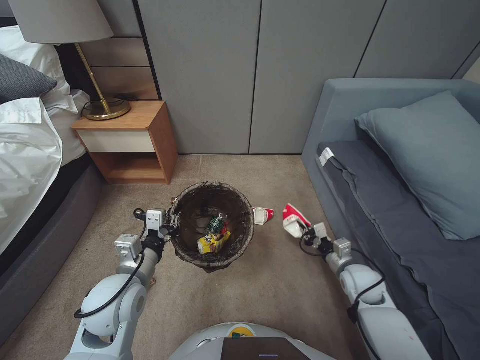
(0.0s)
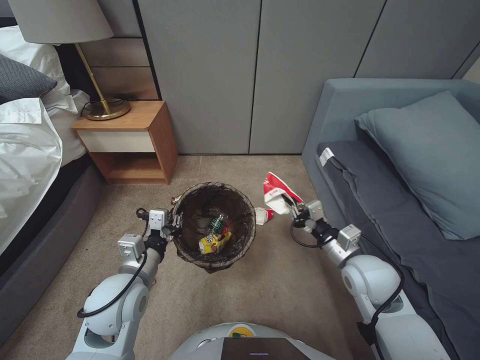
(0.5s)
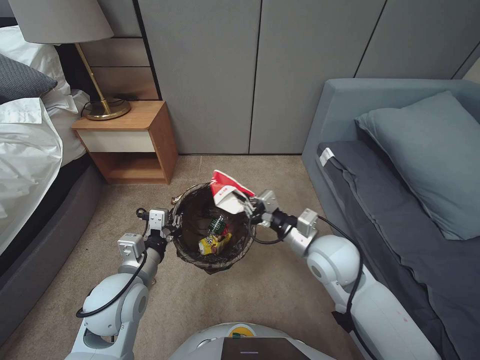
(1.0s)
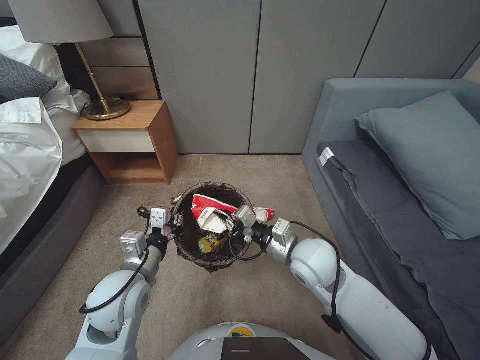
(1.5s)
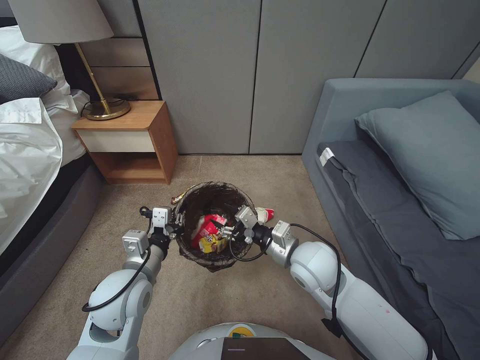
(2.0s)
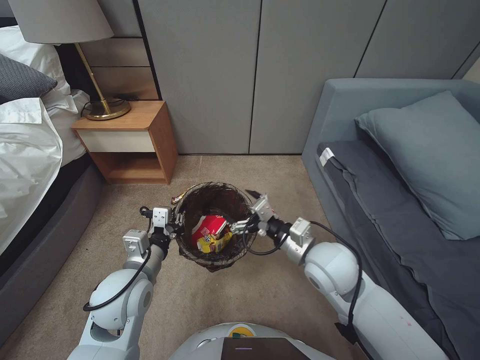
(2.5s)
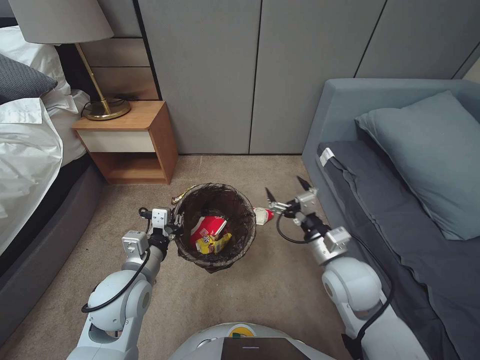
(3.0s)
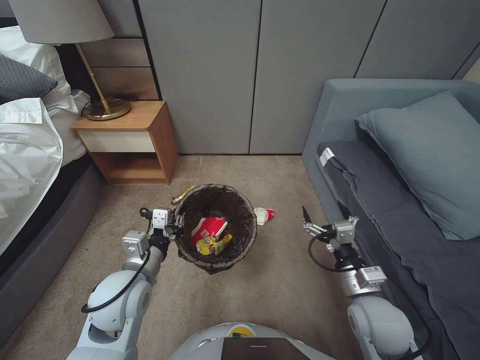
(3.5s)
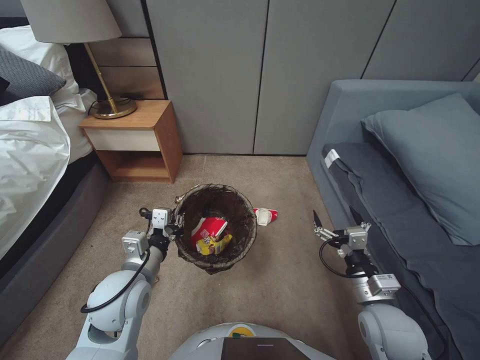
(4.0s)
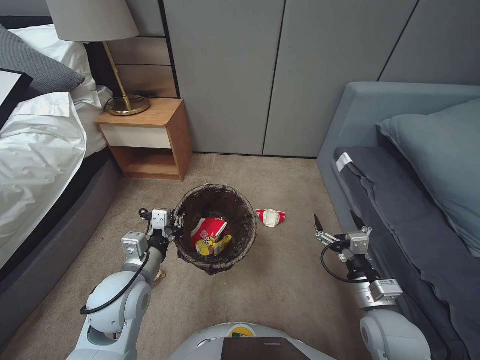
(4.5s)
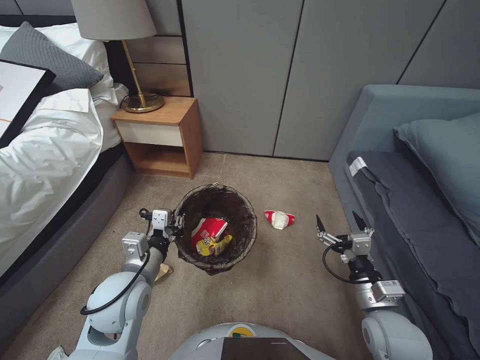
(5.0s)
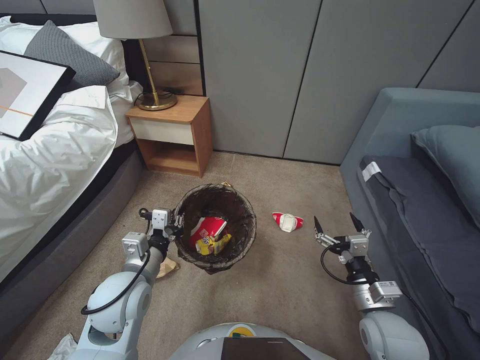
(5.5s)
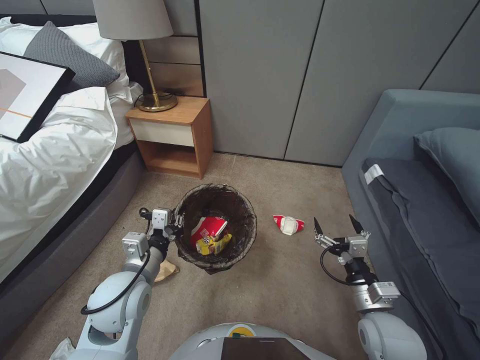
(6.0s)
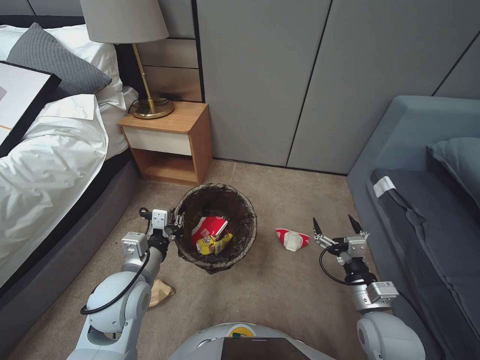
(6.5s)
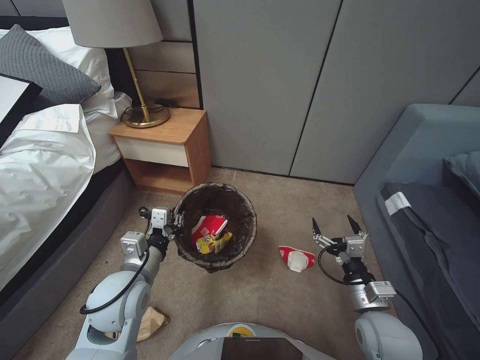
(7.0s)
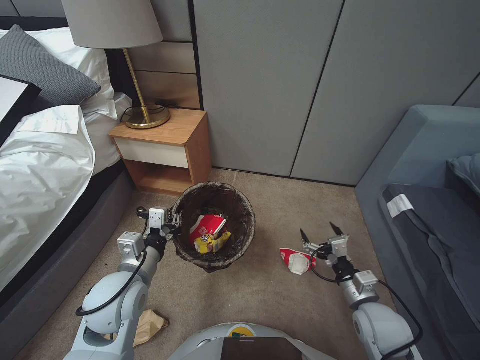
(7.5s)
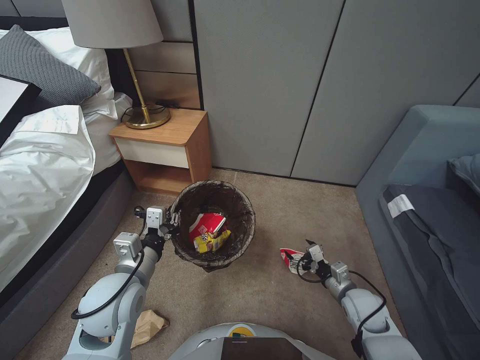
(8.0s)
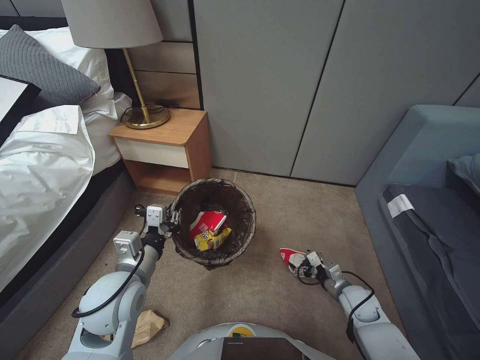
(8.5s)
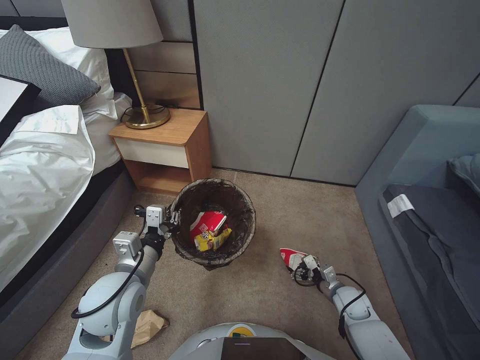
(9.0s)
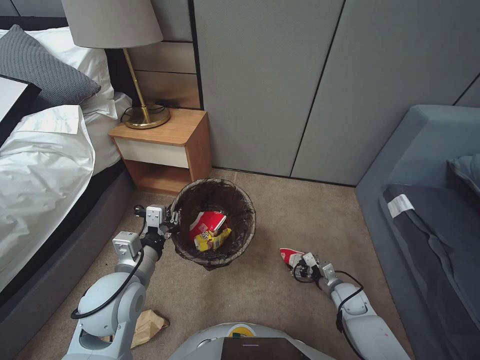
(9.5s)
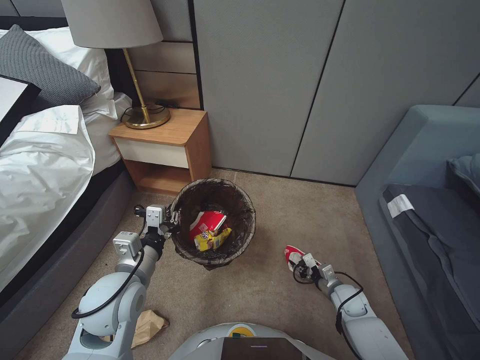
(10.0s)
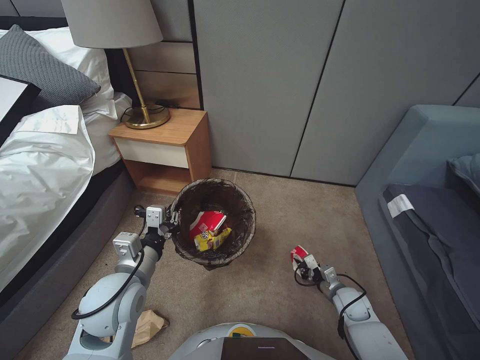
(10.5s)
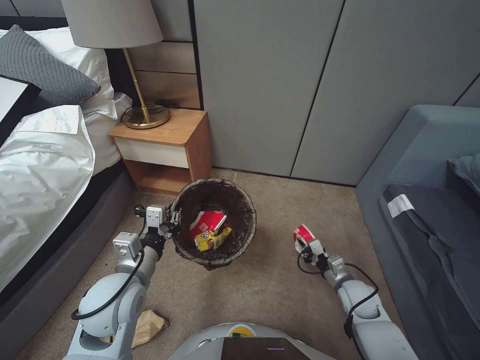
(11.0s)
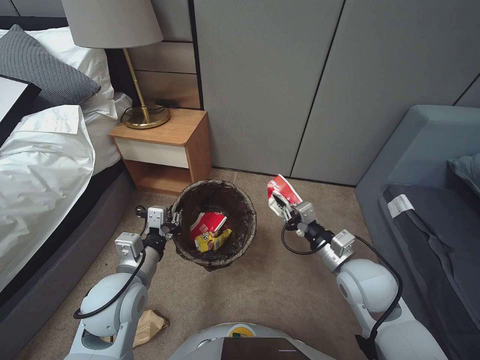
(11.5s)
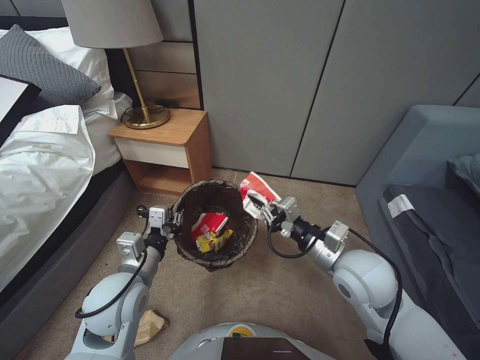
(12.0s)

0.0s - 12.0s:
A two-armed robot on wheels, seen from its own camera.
Task of the whole recording: Pick up the trash bin, then pick up the garbage from the floor and place it into the trash bin.
0.0s - 2.0s: The right gripper heads to the left and upward, covering roughly 25 cm, and opens.
2.0s - 4.0s: The right gripper heads to the right, backward and downward, covering roughly 20 cm, and opens.
6.0s - 8.0s: The right gripper moves downward and forward, roughly 10 cm.
8.0s - 10.0s: The right gripper travels downward by about 10 cm, and closes.
10.0s - 12.0s: The right gripper travels upward and to the left by some 35 cm, and closes its fingers.

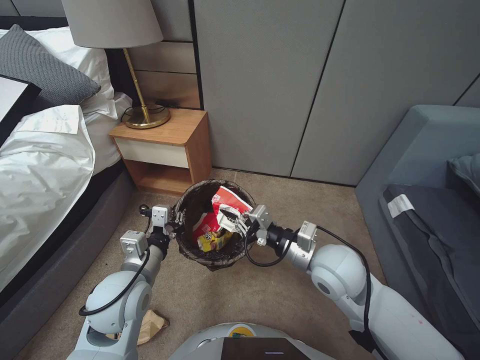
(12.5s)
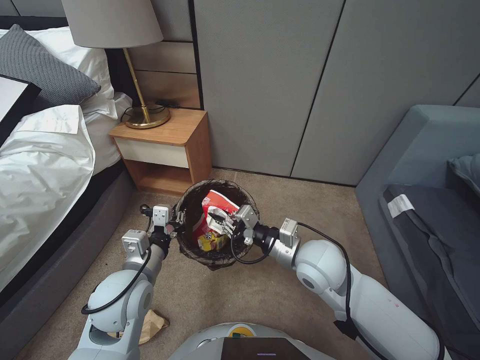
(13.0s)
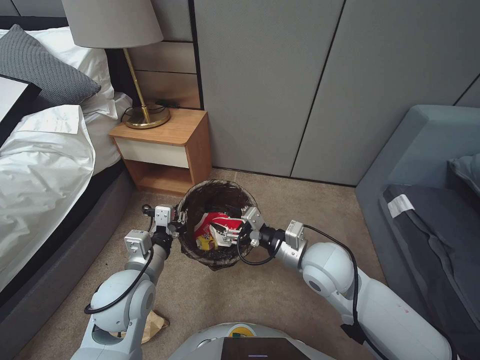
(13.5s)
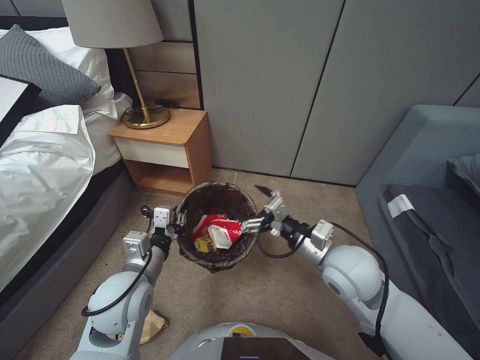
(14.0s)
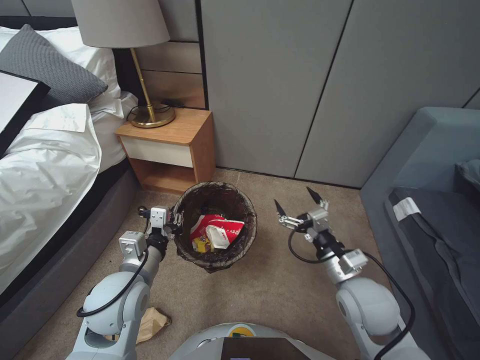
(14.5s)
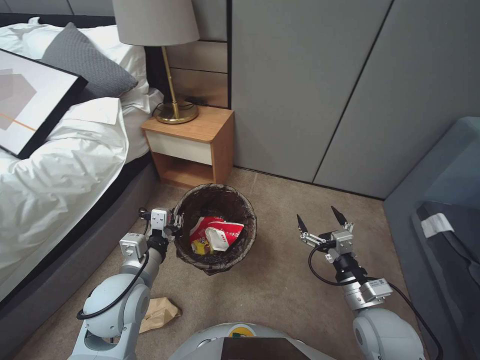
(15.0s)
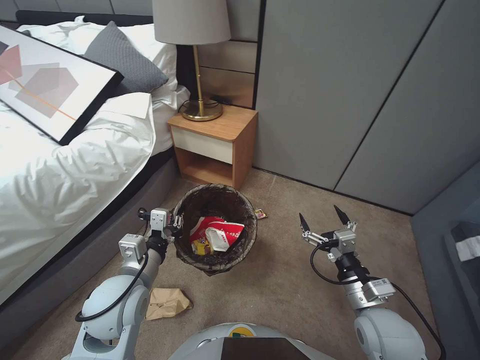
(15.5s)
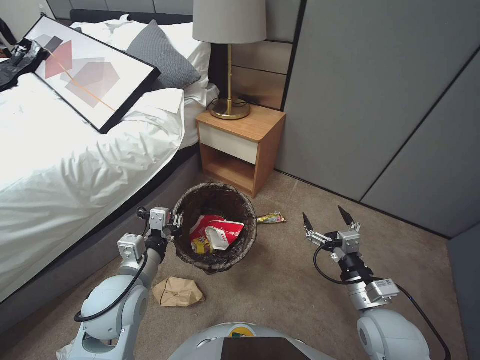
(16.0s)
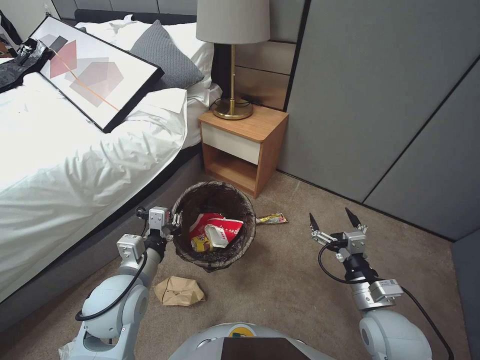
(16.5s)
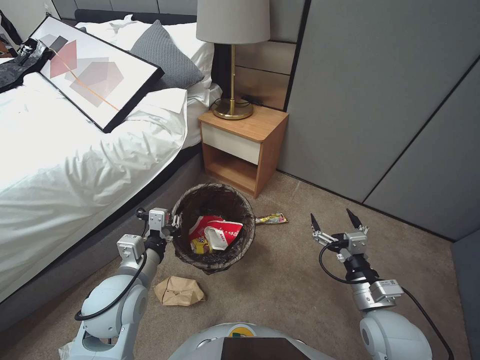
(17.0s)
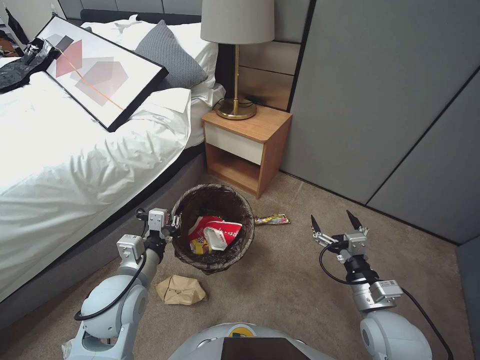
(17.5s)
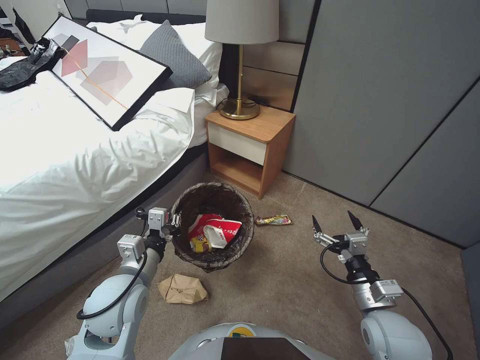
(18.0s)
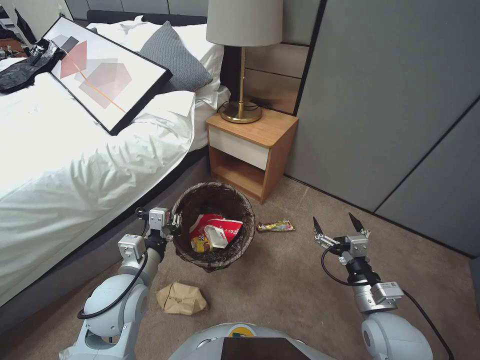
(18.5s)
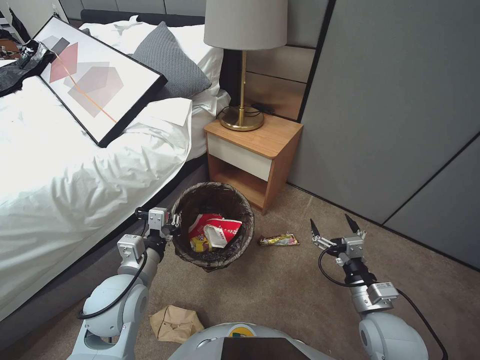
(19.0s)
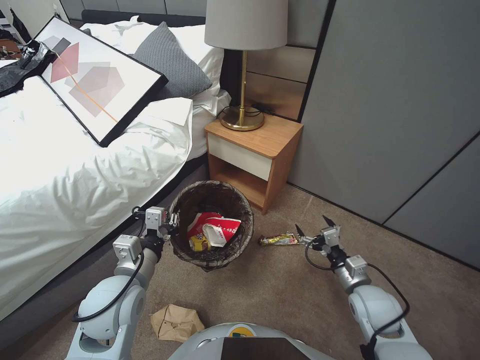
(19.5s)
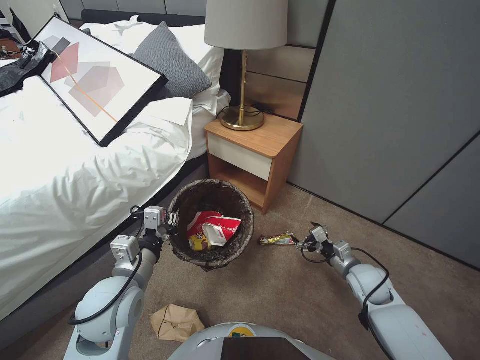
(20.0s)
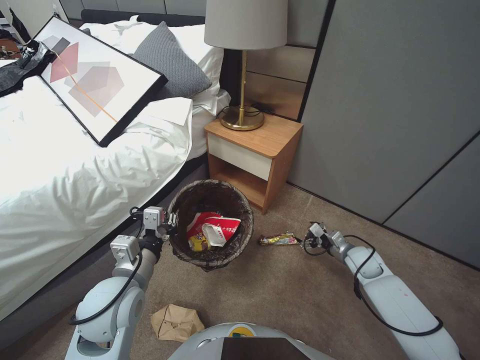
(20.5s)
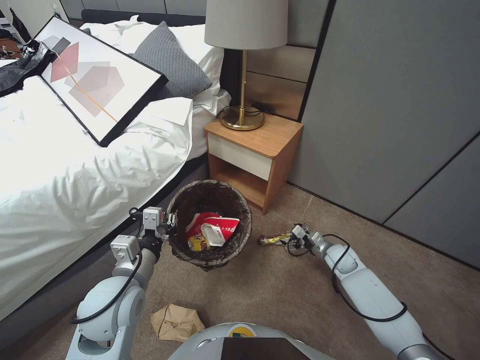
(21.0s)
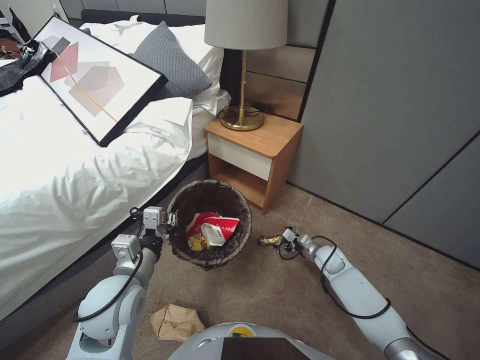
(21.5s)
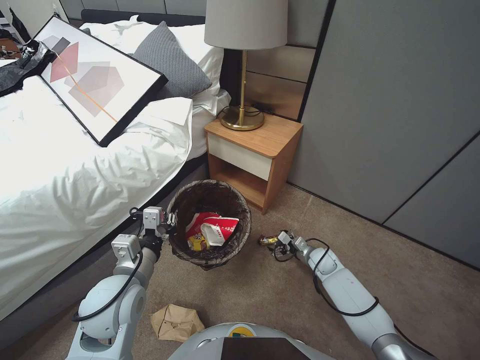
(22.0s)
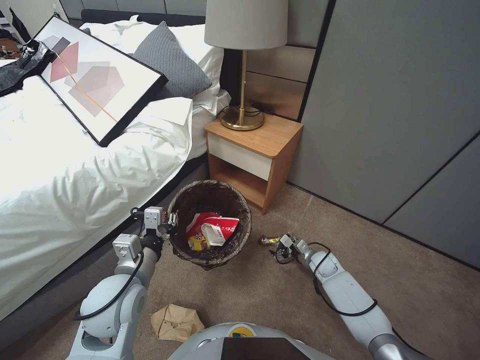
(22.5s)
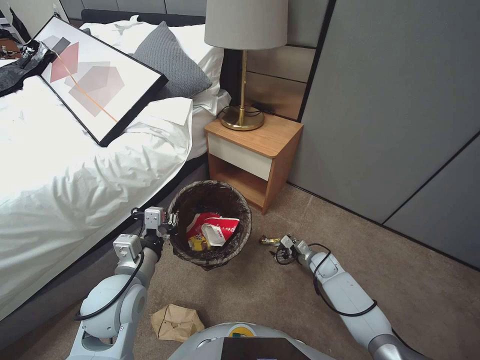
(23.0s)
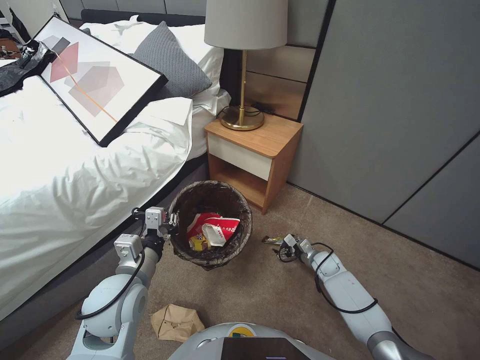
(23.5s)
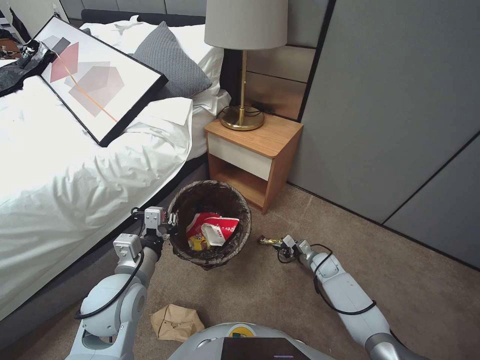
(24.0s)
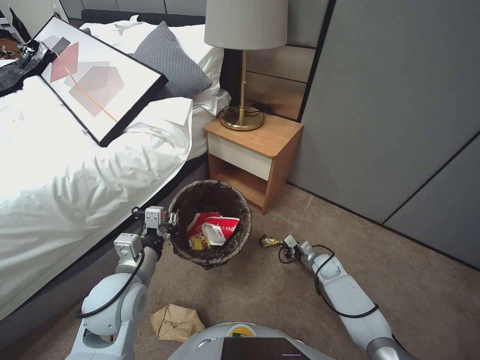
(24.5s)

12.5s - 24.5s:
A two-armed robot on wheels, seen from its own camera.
Task of the whole recording: Pick up the trash bin, then pick up the garbage from the floor and place it into the trash bin.
12.5s - 14.5s: The right gripper moves to the right, some 5 cm, and opens up.
14.5s - 16.5s: The right gripper shifts some 5 cm backward.
16.5s - 18.5s: The grippers stay close to where they were, moving slightly.
18.5s - 20.5s: The right gripper moves forward, downward and to the right, some 25 cm.
20.5s - 22.5s: The right gripper travels downward and to the left by approximately 15 cm.
22.5s - 24.5s: The right gripper closes up.

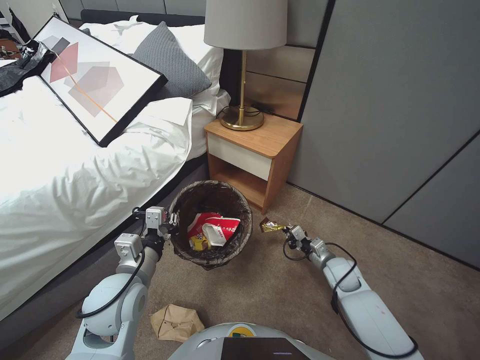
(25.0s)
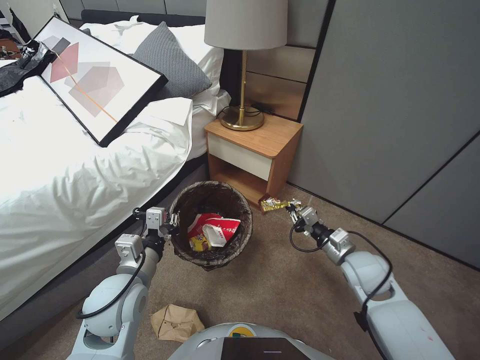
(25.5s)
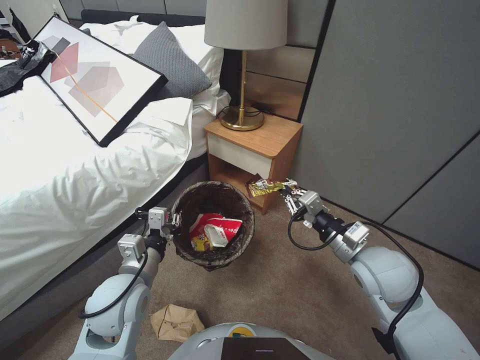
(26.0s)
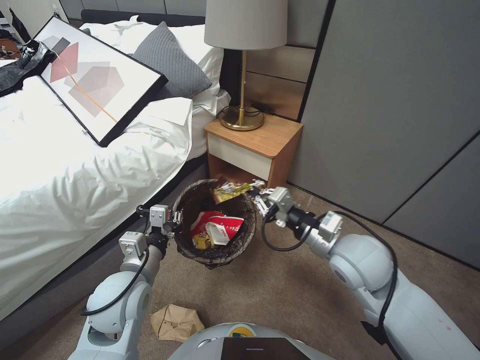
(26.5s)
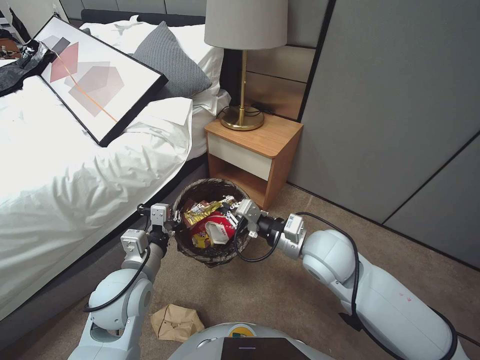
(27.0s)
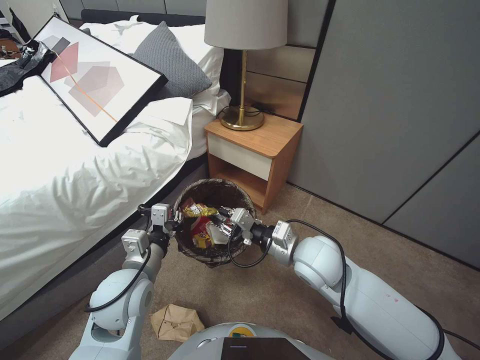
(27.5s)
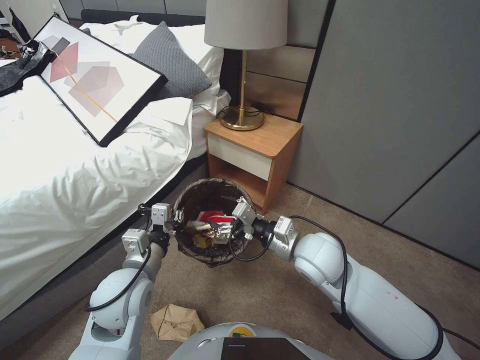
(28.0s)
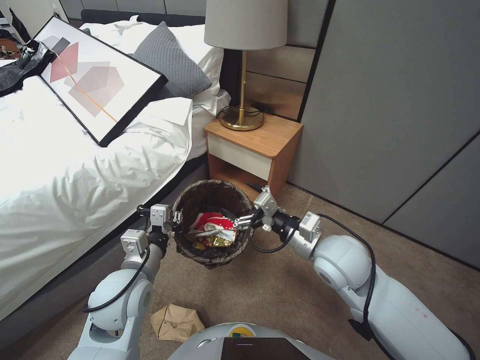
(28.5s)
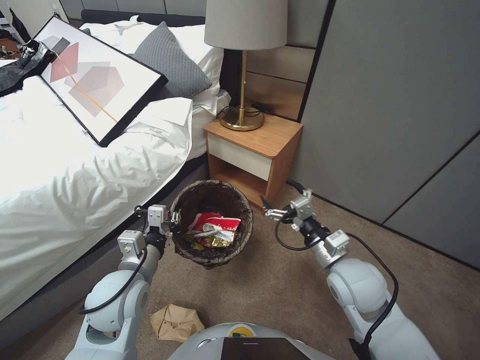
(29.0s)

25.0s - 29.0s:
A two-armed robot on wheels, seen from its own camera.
Task of the whole recording: Pick up the trash bin, then pick up the garbage from the floor and place it into the trash bin.
25.0s - 27.0s: The right gripper moves upward and to the left, some 30 cm.
27.0s - 29.0s: The right gripper moves to the right, some 5 cm, and opens its fingers.
